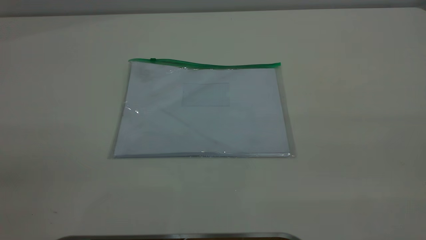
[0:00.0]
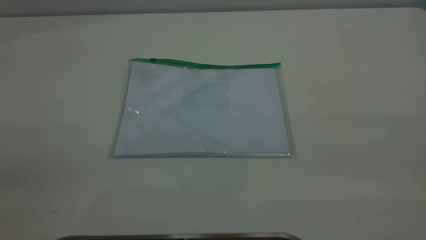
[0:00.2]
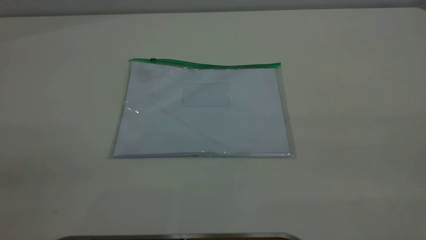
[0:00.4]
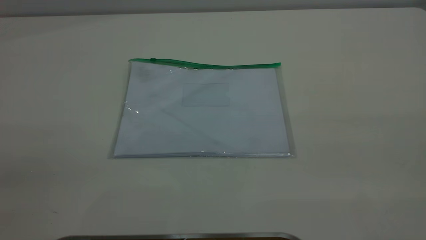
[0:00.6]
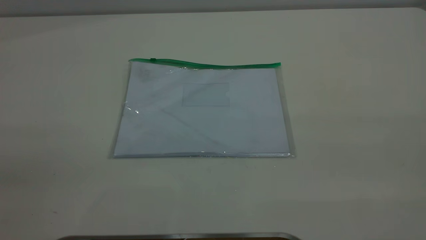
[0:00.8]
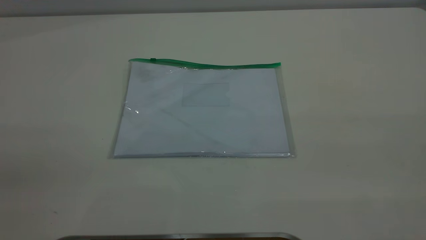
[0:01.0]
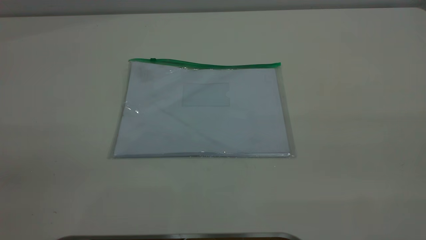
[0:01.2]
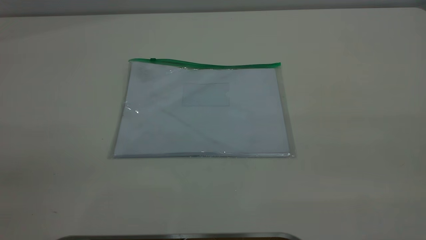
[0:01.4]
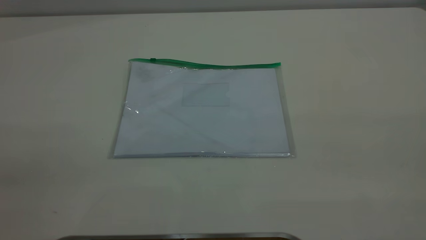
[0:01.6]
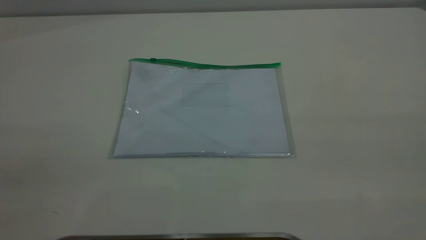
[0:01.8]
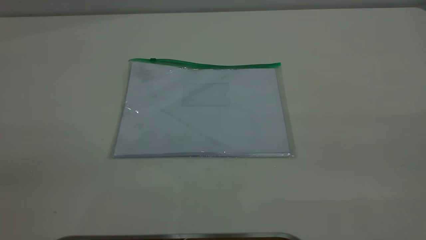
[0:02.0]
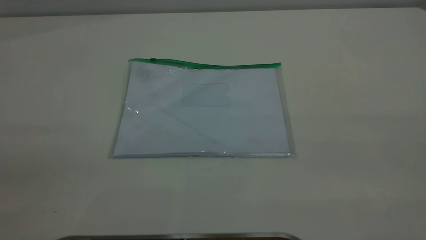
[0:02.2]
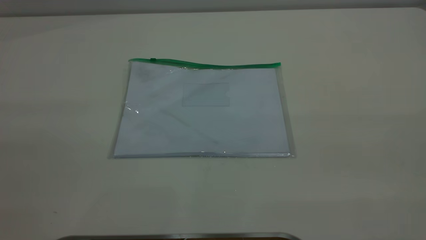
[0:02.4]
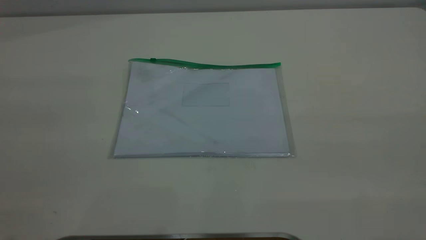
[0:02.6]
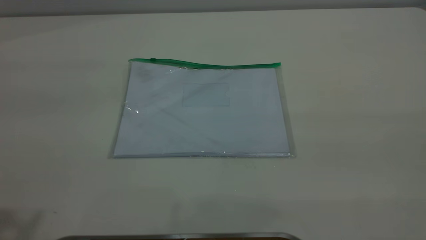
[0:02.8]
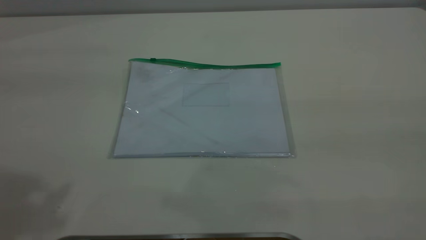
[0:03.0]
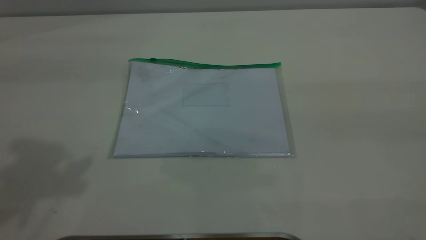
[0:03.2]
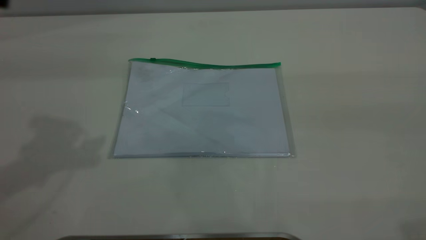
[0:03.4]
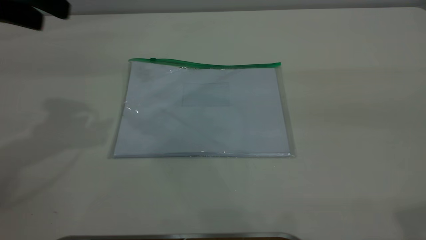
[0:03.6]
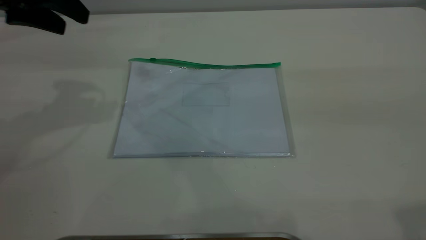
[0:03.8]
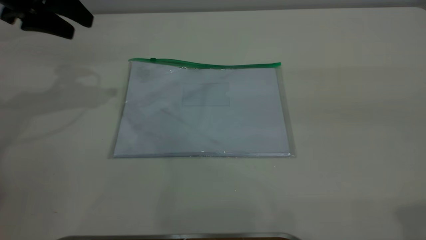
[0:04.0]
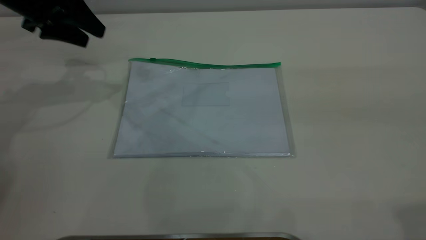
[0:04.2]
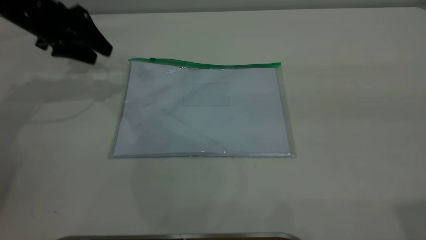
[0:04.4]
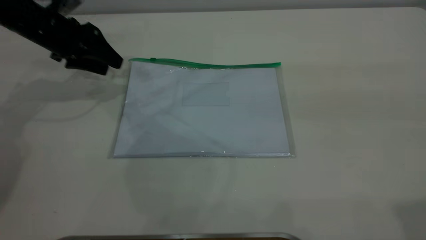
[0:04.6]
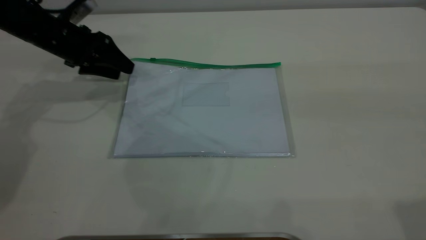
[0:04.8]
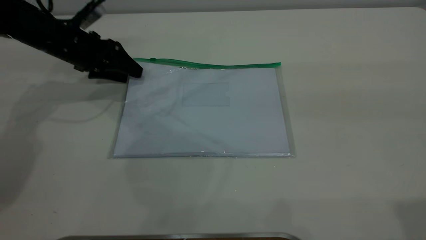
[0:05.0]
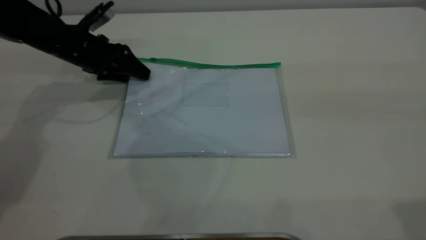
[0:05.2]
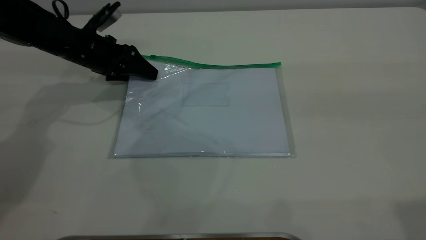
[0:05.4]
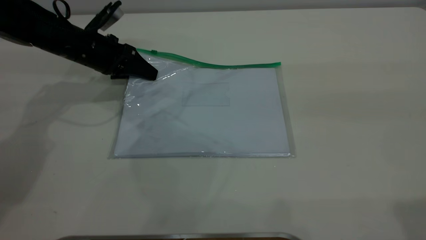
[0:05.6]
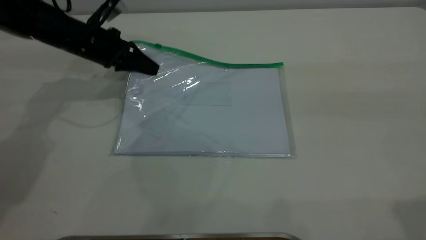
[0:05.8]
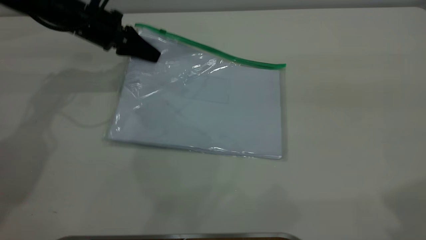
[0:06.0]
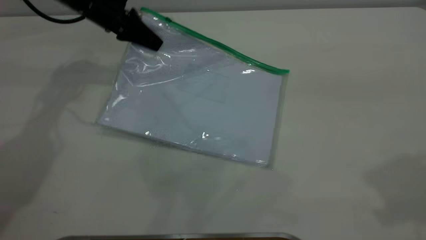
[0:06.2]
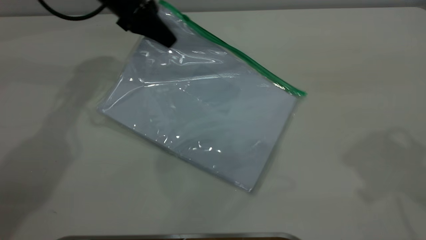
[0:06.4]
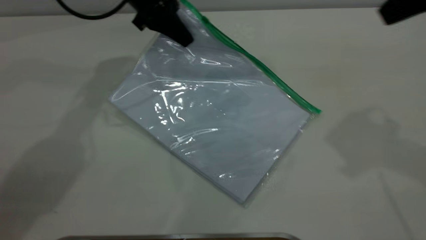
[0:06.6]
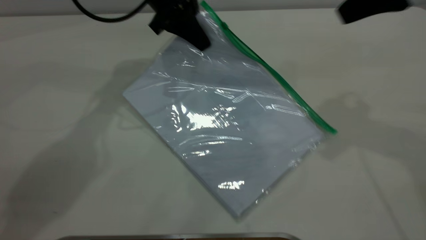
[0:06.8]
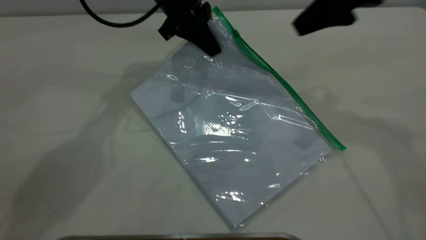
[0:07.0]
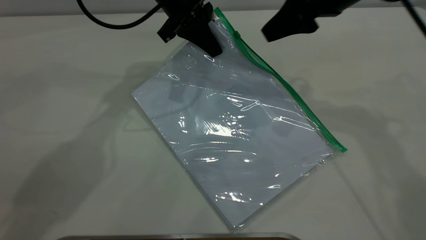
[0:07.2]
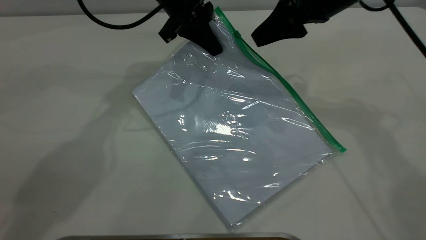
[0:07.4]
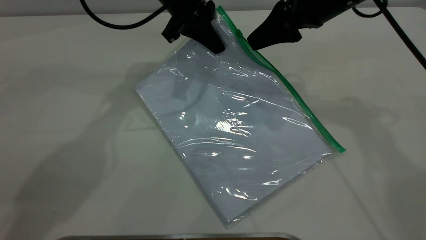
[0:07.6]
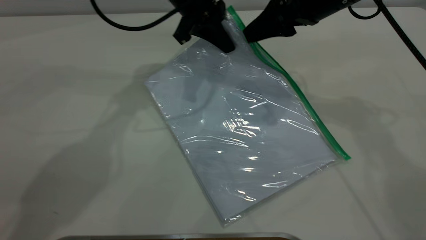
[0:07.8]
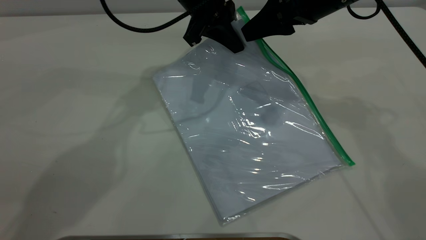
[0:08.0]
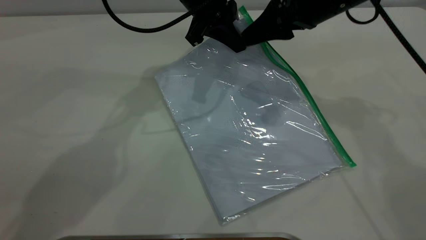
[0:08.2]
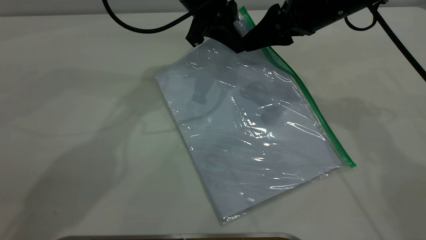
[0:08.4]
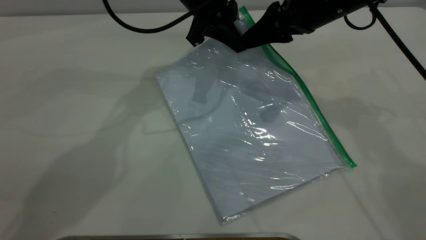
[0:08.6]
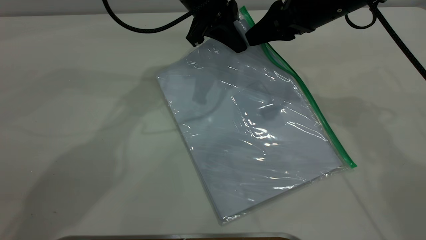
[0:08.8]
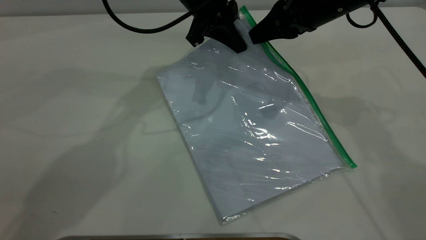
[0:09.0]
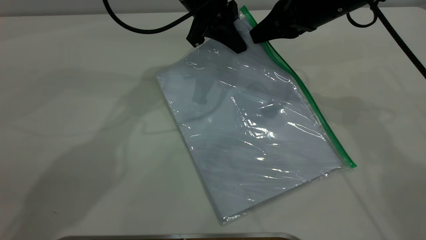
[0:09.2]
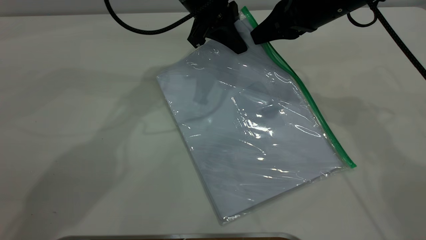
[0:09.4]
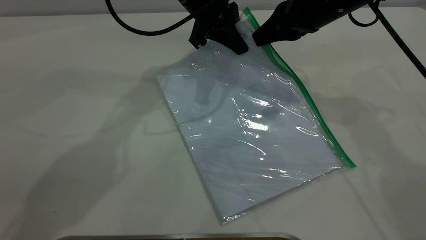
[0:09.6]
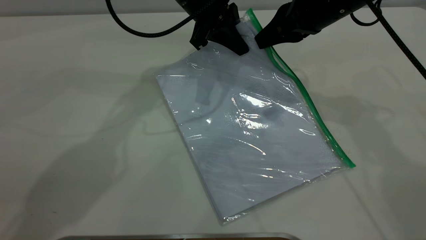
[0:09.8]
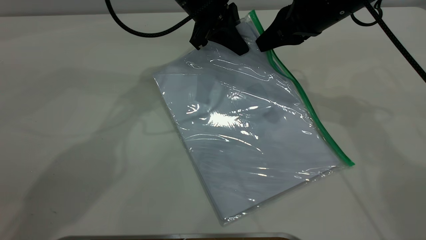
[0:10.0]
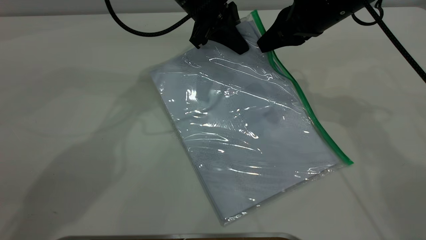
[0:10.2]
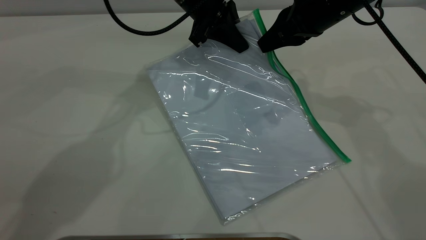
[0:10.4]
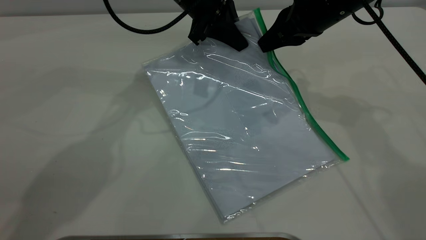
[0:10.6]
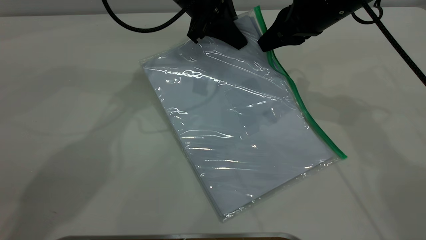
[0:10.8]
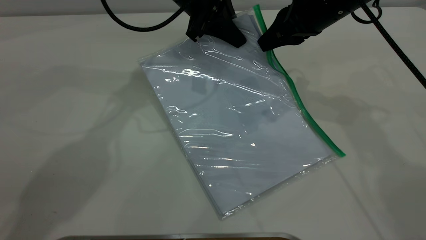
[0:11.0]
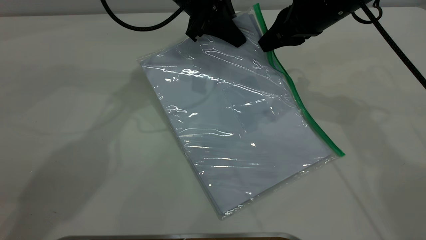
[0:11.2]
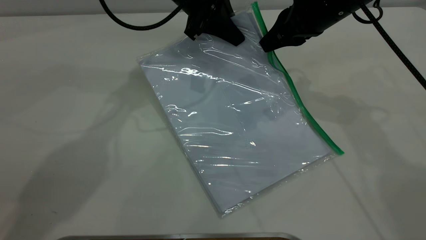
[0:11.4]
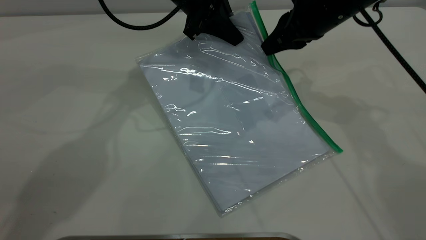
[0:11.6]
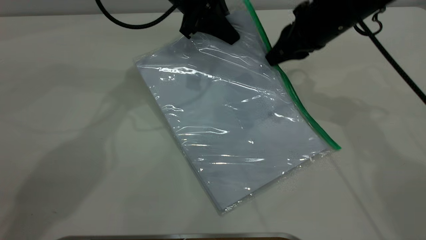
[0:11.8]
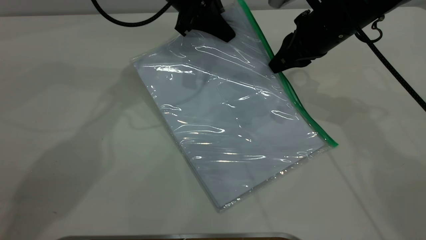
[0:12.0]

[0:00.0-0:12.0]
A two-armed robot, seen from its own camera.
Step, 0:00.0 to 0:06.0: Pick up the transparent plastic bag with the left gripper.
0:03.0 to 0:04.4: The left gripper is displaced downward and forward by some 40 cm.
0:04.4 to 0:06.0: The left gripper shifts about 5 cm to the right, and closes its fingers.
0:06.0 to 0:07.6: The left gripper shifts some 15 cm to the right; the right gripper heads forward, downward and to the left, covering some 30 cm.
0:07.6 to 0:09.0: The right gripper closes.
0:09.0 to 0:12.0: There are only small adjustments of the grippers.

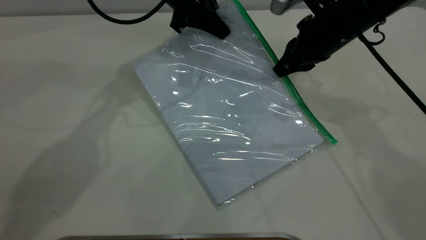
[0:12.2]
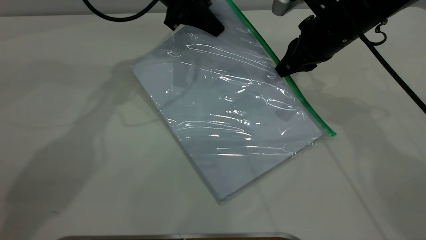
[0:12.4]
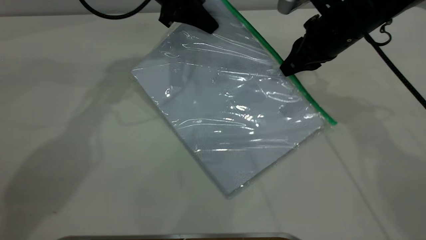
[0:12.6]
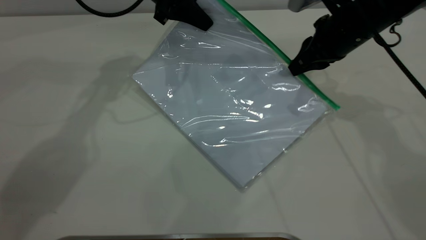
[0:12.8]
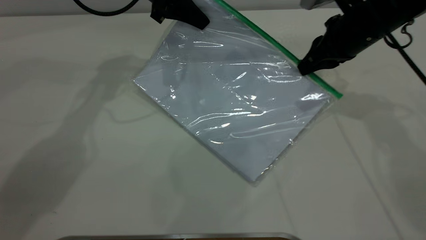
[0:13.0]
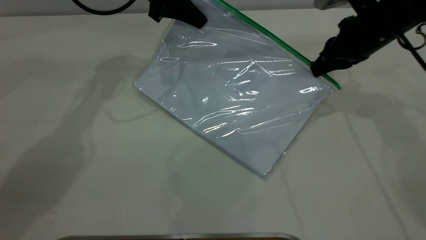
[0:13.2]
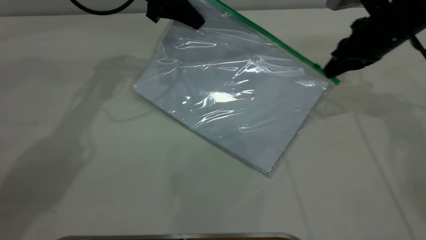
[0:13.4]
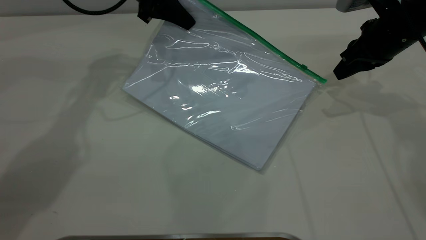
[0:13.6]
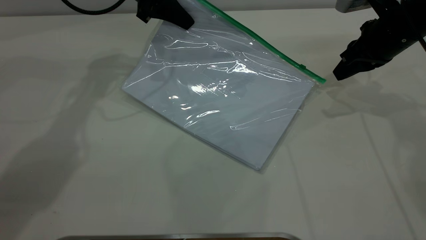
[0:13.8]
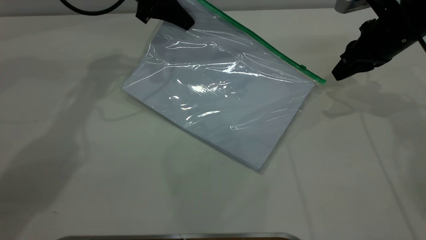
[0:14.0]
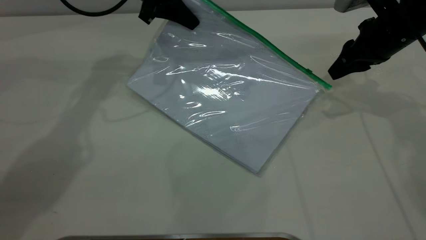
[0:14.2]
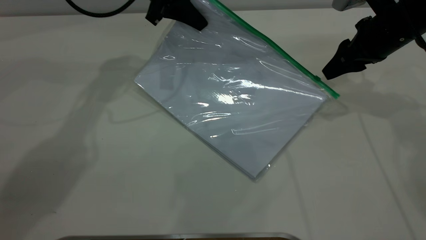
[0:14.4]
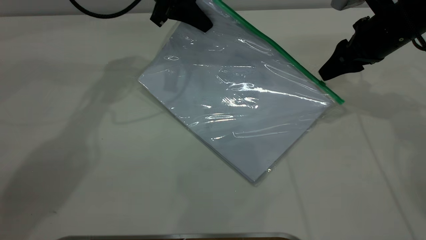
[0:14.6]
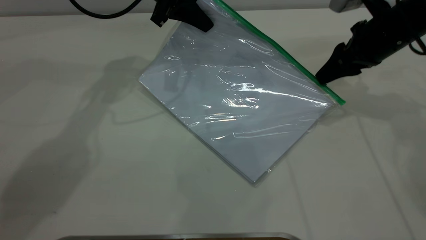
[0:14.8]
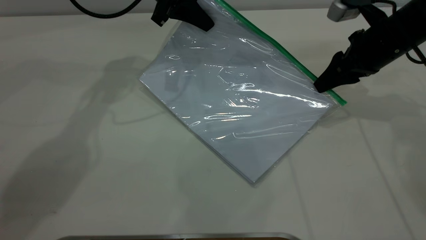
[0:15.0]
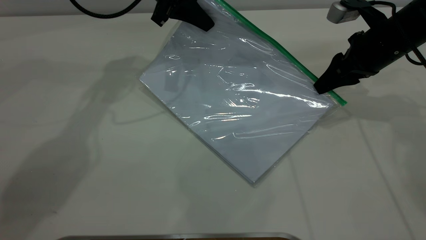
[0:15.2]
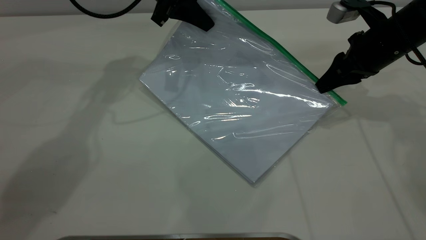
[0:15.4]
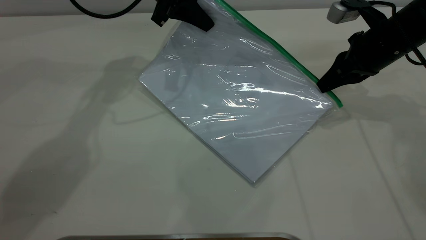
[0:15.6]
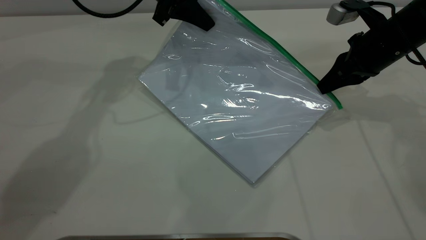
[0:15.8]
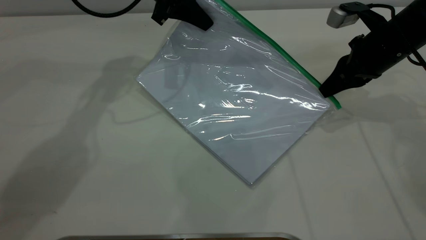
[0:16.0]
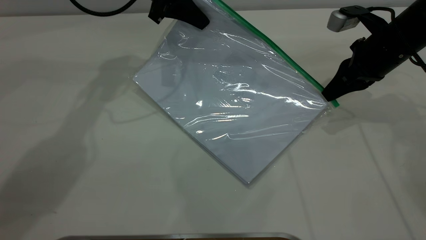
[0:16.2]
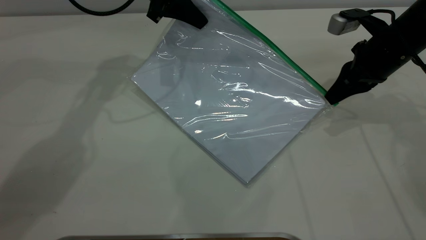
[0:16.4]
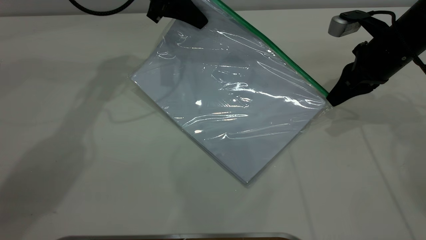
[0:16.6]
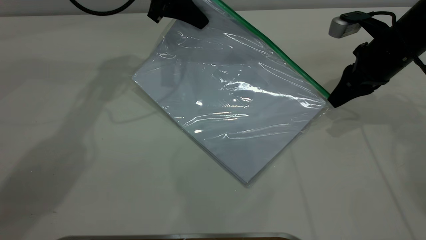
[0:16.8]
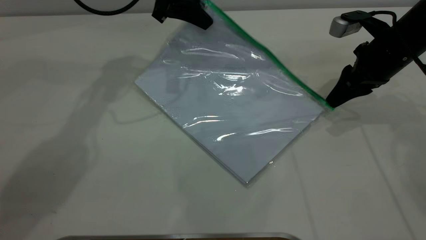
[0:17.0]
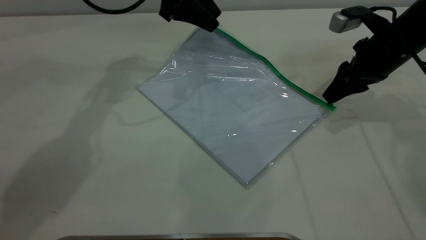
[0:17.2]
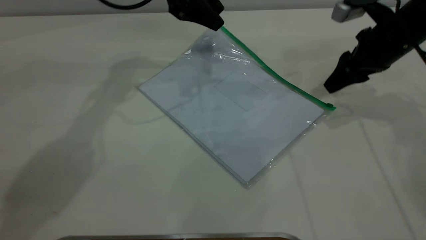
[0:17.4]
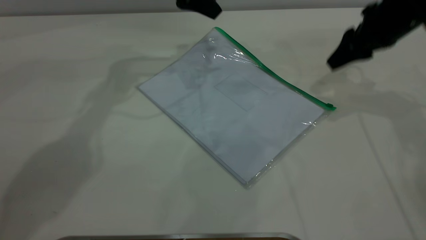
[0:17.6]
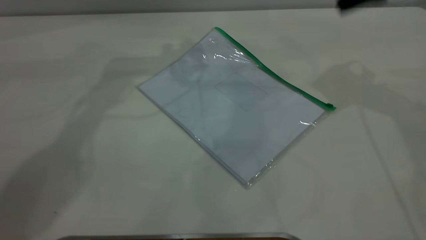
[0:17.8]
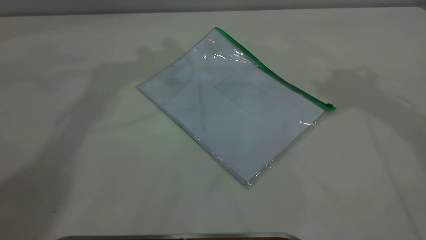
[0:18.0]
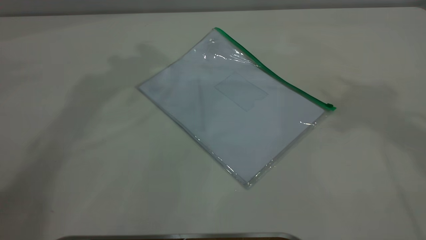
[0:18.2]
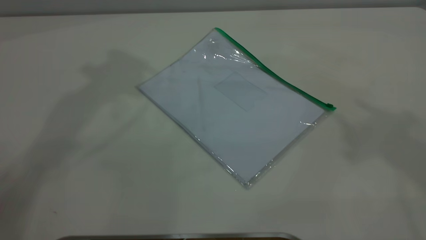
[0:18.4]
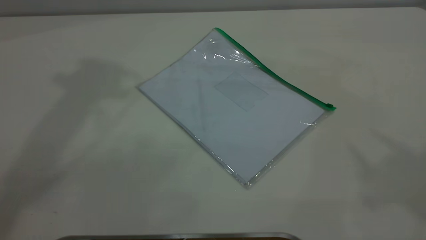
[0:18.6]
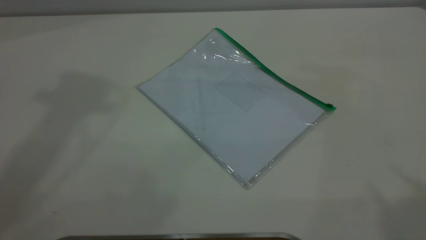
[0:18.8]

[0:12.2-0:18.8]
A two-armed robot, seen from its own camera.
Step, 0:12.2 to 0:17.2: Pulling up the zipper on the transparent plastic bag with the right gripper to close it.
Step, 0:17.4 to 0:17.6: Place the transparent plastic bag.
0:12.2 to 0:13.8: The left gripper shifts approximately 5 cm to the left. Meanwhile the right gripper is displaced to the right by roughly 10 cm.
0:13.8 to 0:15.4: The right gripper opens, then closes once more.
0:15.4 to 0:17.2: The right gripper opens, while the left gripper opens its fingers.
0:17.2 to 0:18.8: The two grippers go roughly 50 cm upward and backward.
